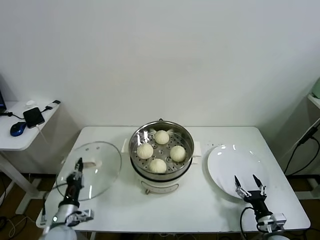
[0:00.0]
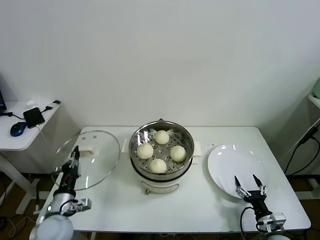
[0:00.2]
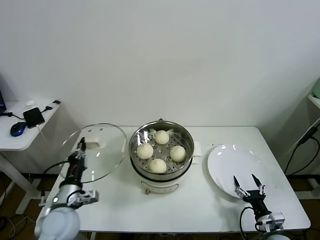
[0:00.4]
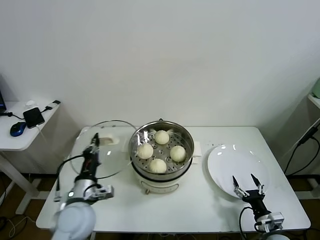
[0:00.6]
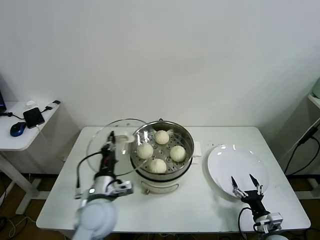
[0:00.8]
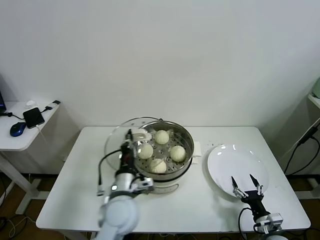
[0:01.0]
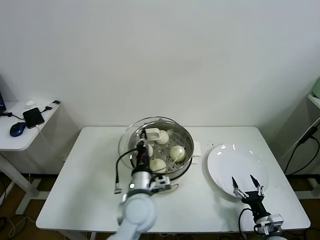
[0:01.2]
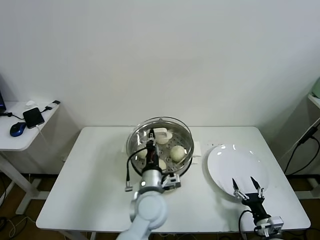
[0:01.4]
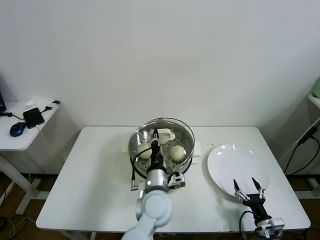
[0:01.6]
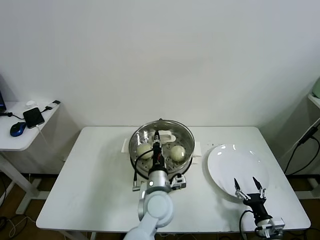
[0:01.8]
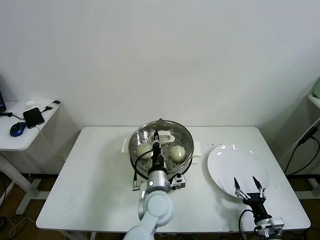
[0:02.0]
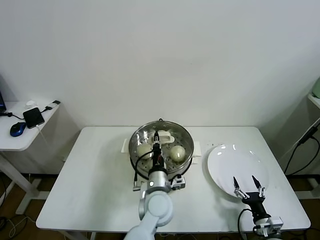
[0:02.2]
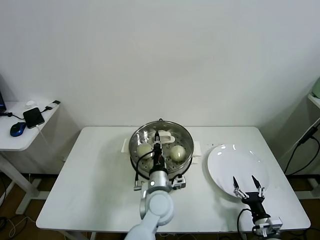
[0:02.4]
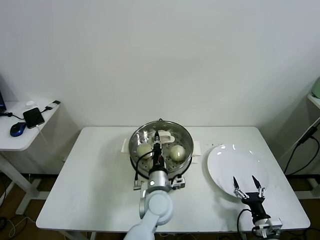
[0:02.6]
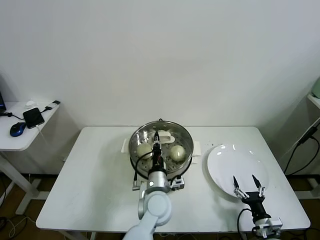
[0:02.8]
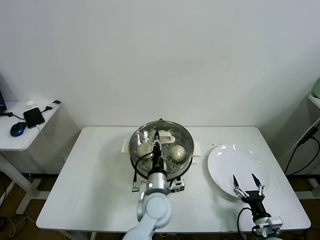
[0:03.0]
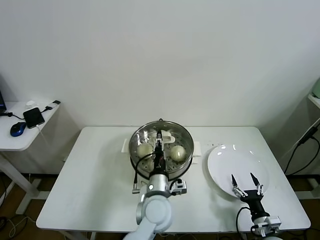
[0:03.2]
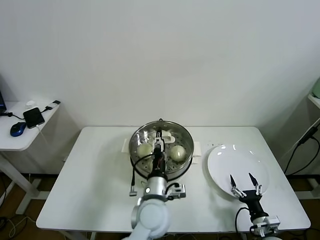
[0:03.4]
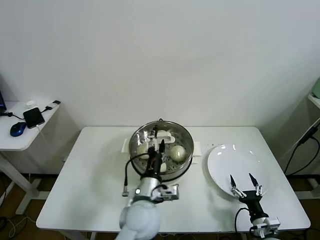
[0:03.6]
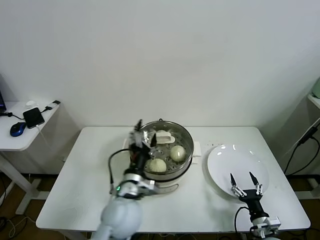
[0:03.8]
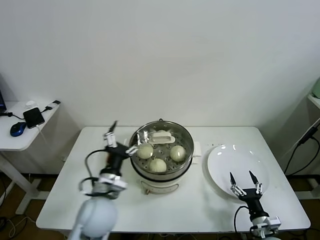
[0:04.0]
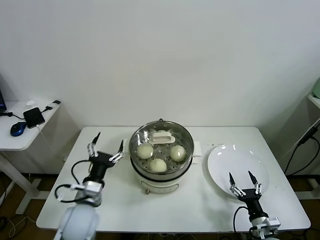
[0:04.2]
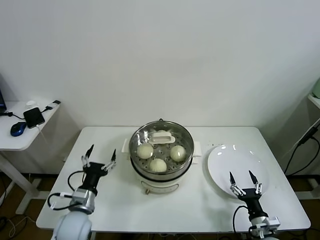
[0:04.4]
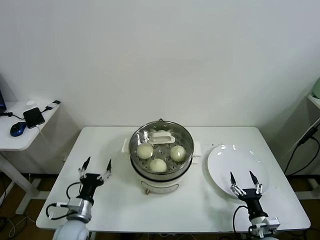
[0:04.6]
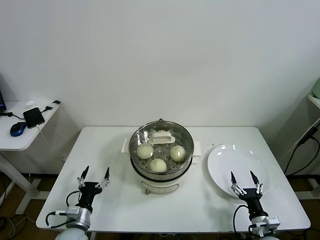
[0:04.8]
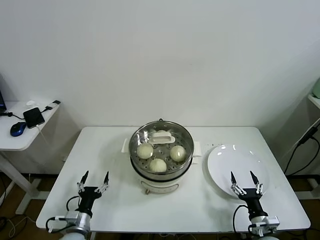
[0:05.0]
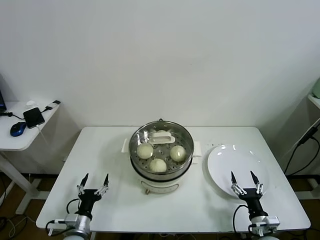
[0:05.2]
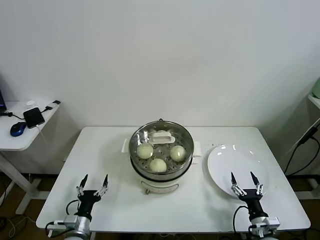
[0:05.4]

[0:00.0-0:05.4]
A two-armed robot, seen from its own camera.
Task of the whole recording: take steamed baozi put them in steamer.
Step, 0:00.0 to 0:03.0: Place the pot lid on the steamer with left gripper.
0:00.0 to 0:01.4: The left gripper moves to the right and upward, roughly 30 cm.
0:01.4 to 0:02.8: The left gripper ends up about 5 cm from where it was.
0:02.8 to 0:04.0: The left gripper is displaced to the left and upward by about 15 cm, and opens up.
0:04.0 to 0:05.4: The left gripper is displaced downward and to the left by approximately 25 cm.

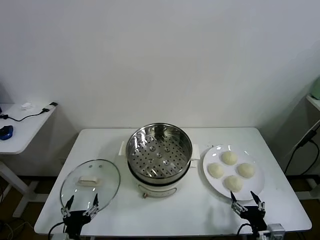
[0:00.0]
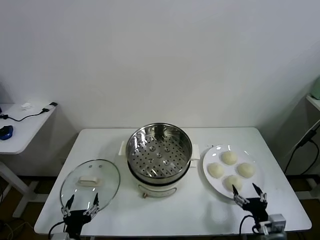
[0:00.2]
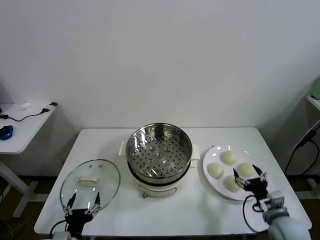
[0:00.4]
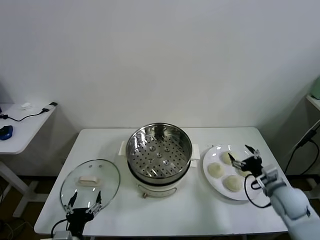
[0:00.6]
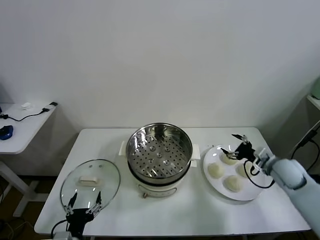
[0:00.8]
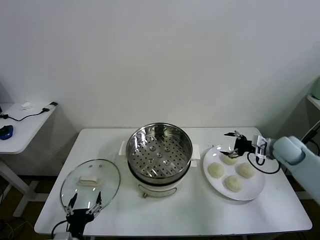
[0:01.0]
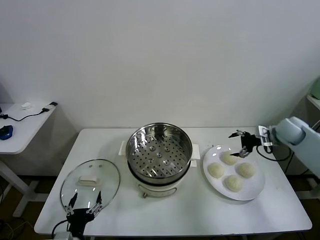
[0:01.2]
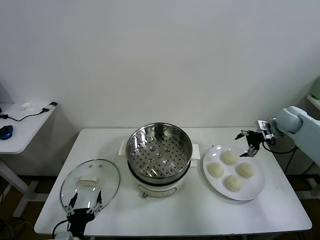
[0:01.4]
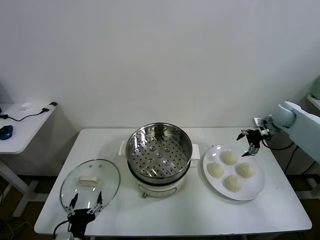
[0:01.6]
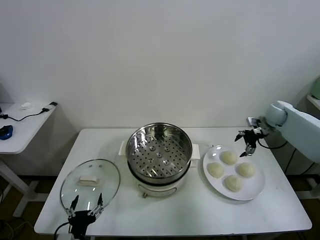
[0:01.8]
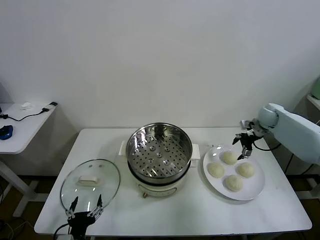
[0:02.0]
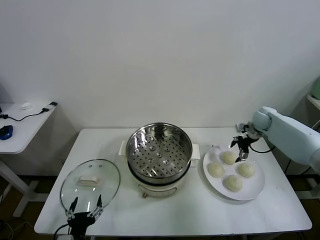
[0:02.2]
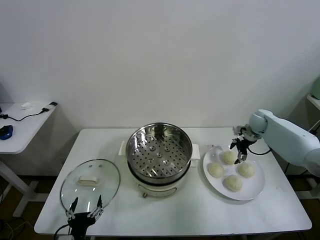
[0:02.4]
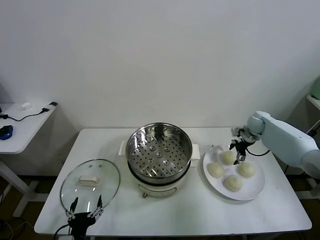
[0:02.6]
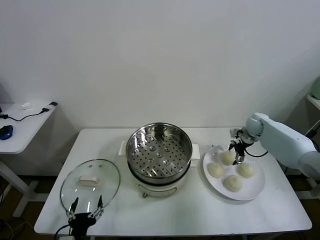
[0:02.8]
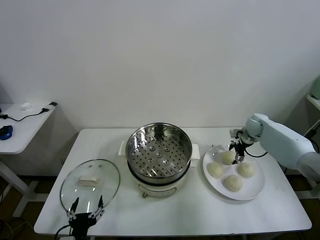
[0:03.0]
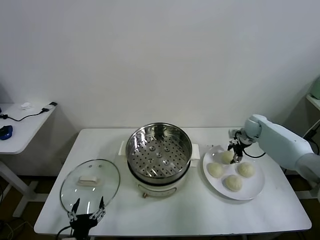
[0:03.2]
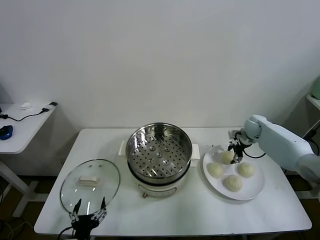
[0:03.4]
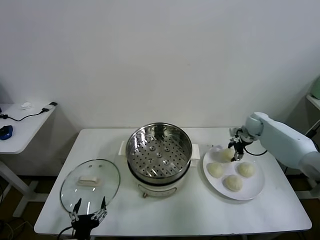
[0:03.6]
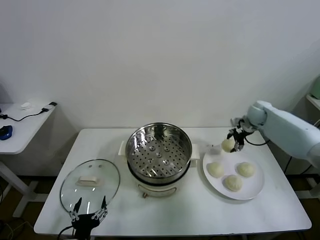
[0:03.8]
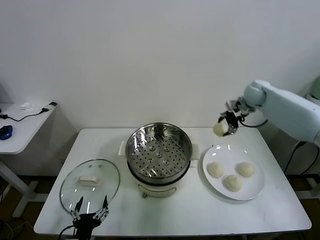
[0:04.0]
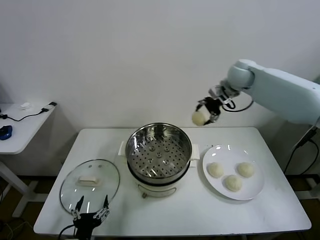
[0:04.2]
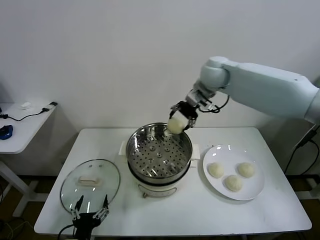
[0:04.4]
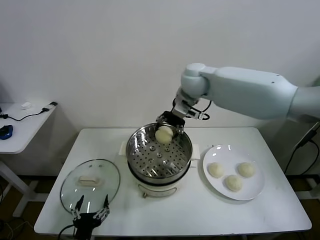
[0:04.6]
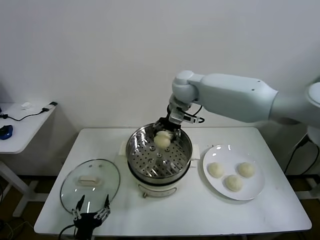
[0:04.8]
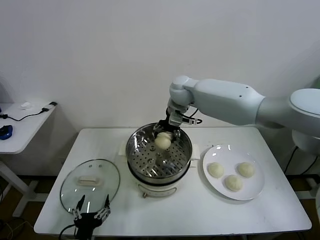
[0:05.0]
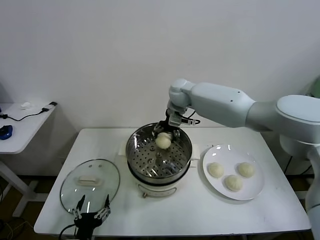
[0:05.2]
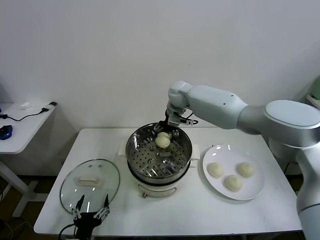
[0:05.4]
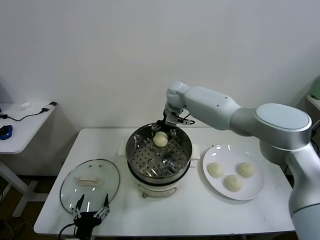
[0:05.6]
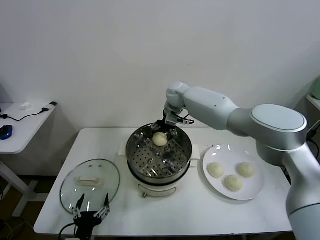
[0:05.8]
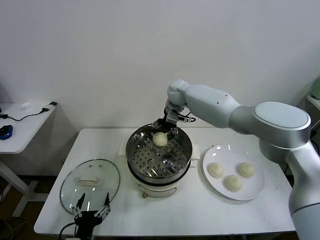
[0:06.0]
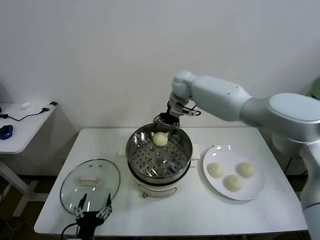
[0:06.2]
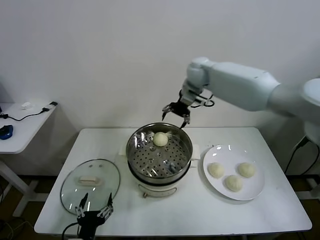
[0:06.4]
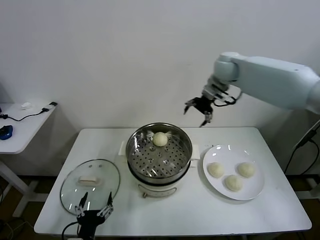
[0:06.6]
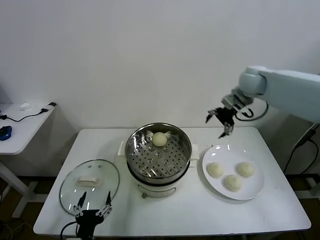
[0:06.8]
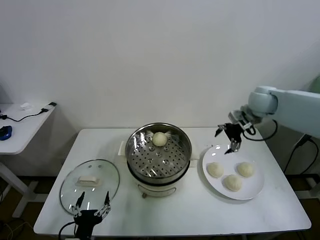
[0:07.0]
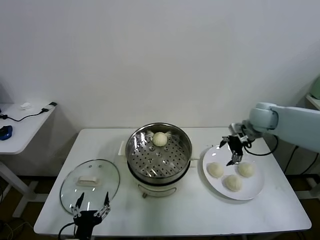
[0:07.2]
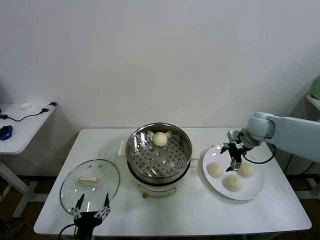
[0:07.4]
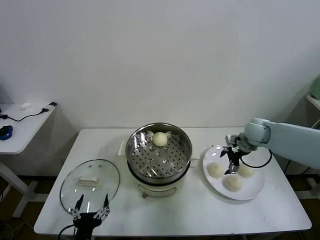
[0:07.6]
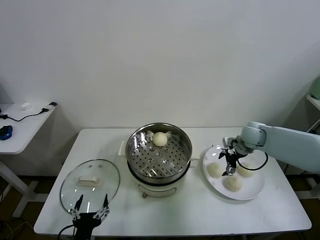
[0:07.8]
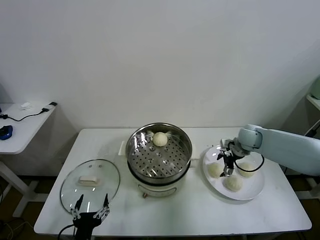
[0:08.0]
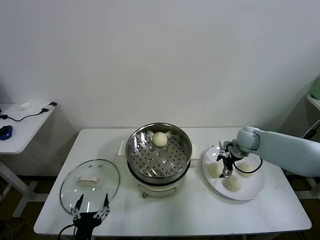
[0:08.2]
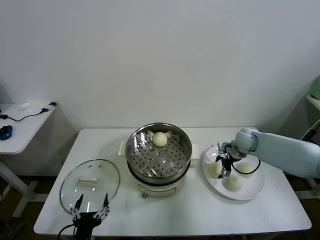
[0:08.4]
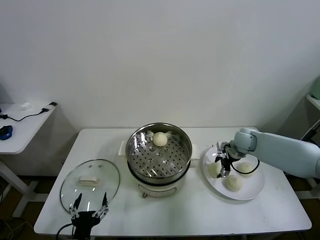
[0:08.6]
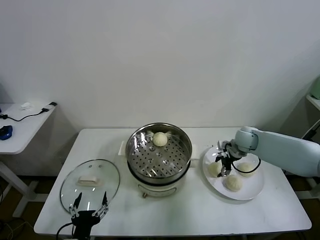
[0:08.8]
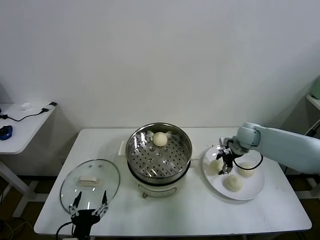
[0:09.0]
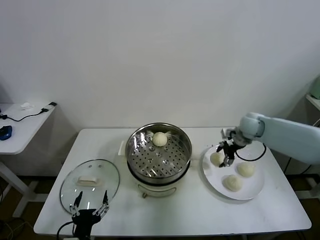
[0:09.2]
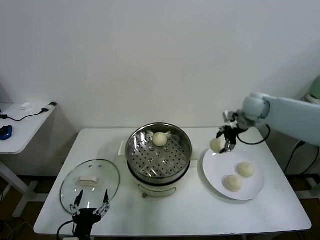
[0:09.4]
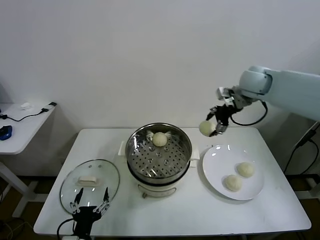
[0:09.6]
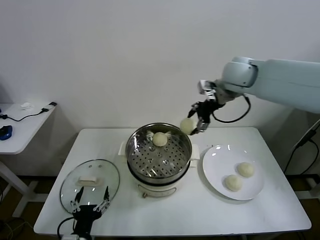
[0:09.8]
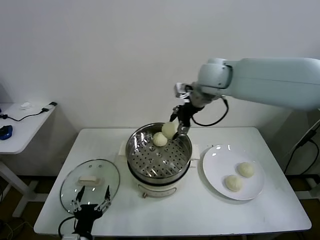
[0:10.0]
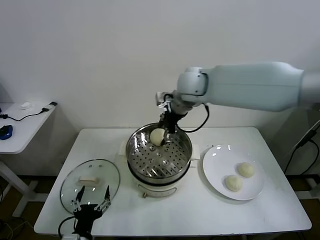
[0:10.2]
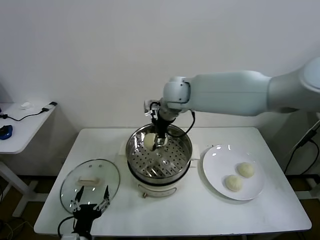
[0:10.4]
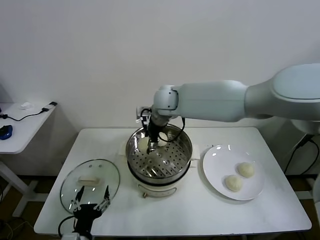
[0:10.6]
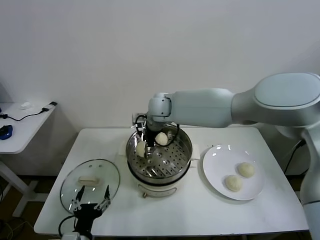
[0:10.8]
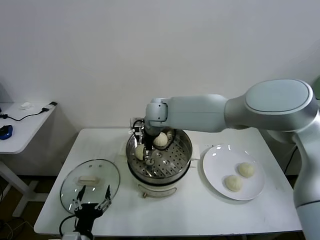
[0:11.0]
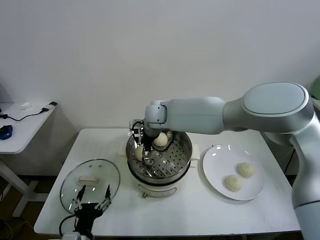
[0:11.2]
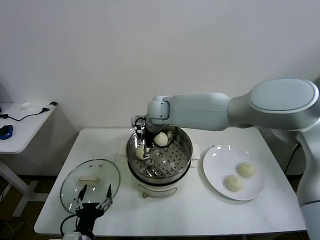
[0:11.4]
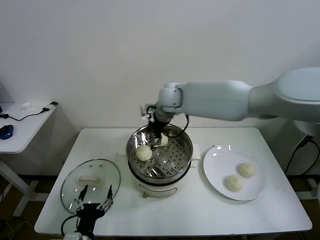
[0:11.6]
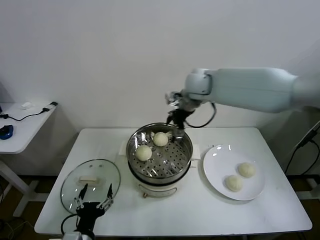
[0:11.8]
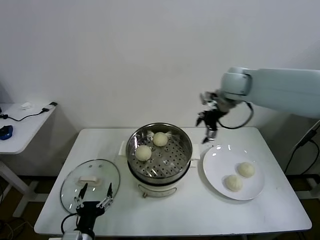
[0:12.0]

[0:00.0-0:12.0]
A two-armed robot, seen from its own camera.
Task of the whole recording: take steamed baozi put them in steamer.
Step, 0:00.0 to 0:03.2: Grasp the baozi in the plate with right gripper.
Step, 0:03.4 to 0:06.2: Place the baozi on the steamer with right gripper.
Step, 0:06.4 to 0:08.6: Grasp the baozi in the plate with right gripper.
Step, 0:08.8 to 0:11.4: Place the baozi on the steamer with right gripper.
0:01.6 to 0:03.0: The right gripper moves downward and to the left, about 10 cm.
0:03.0 to 0:04.4: The right gripper heads to the left and upward, covering roughly 35 cm.
0:04.4 to 0:06.0: The right gripper heads downward, forward and to the left, covering some 15 cm, and opens.
0:06.0 to 0:07.6: The right gripper is displaced to the right, backward and downward by some 30 cm.
0:07.6 to 0:09.0: The right gripper closes up.
0:09.0 to 0:10.4: The right gripper is displaced to the left and upward by approximately 35 cm.
0:10.4 to 0:12.0: The right gripper is displaced to the right by about 20 cm, and opens its fingers.

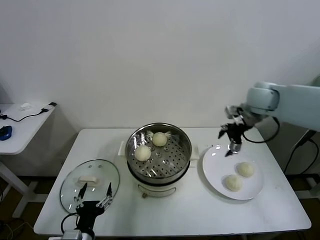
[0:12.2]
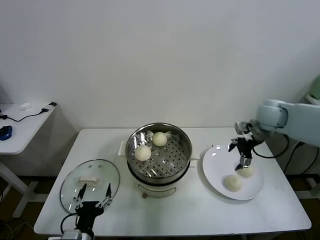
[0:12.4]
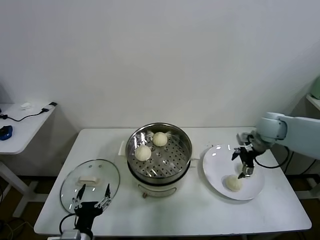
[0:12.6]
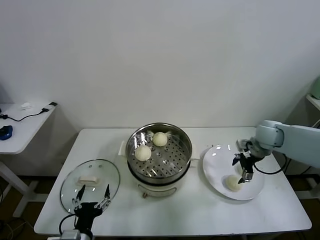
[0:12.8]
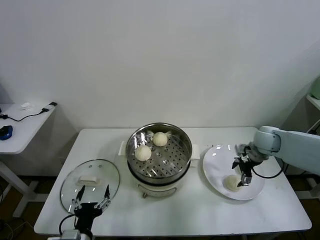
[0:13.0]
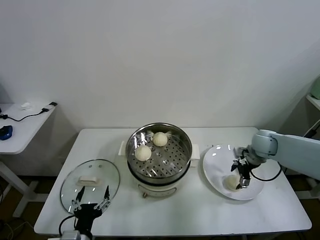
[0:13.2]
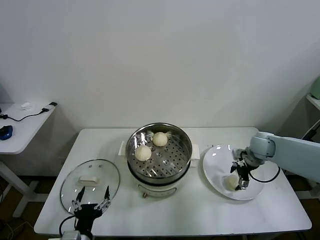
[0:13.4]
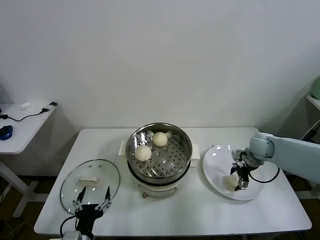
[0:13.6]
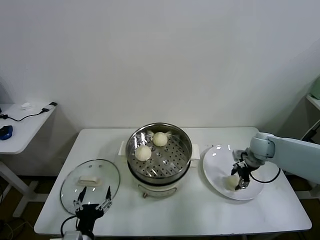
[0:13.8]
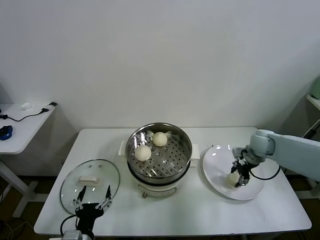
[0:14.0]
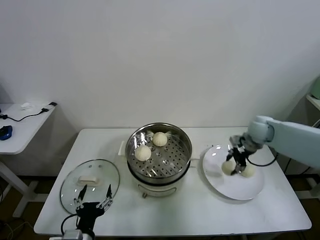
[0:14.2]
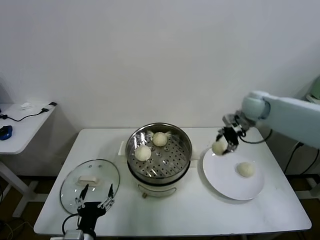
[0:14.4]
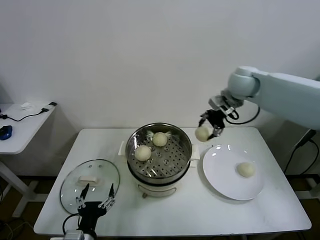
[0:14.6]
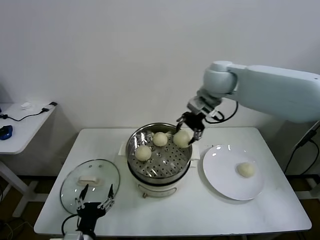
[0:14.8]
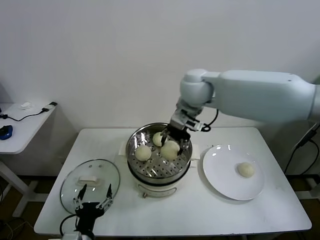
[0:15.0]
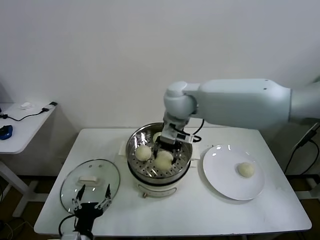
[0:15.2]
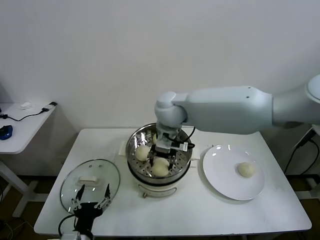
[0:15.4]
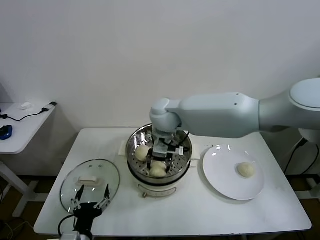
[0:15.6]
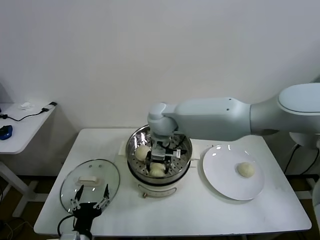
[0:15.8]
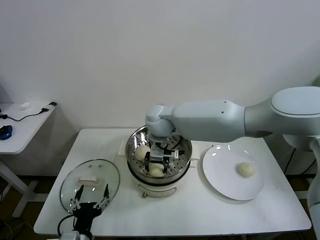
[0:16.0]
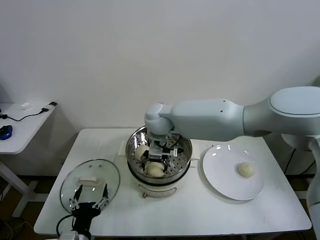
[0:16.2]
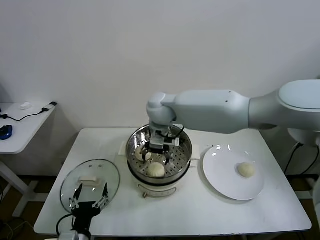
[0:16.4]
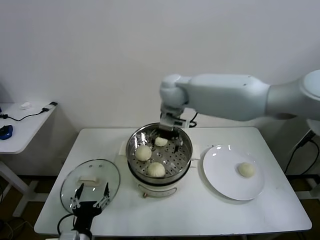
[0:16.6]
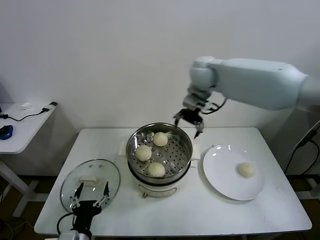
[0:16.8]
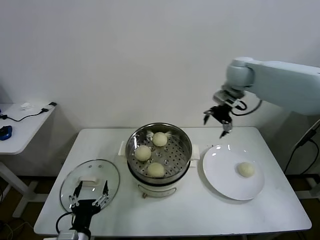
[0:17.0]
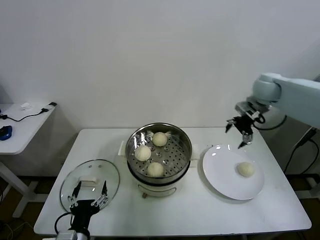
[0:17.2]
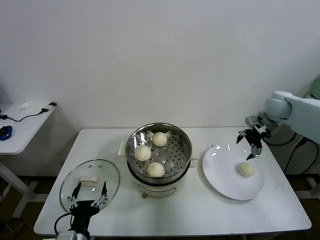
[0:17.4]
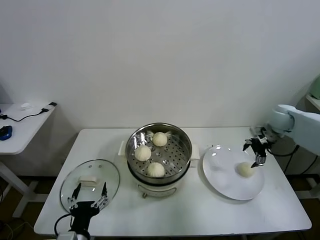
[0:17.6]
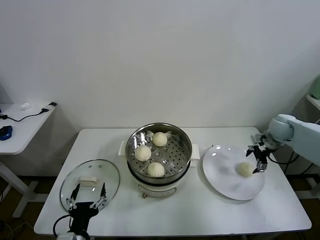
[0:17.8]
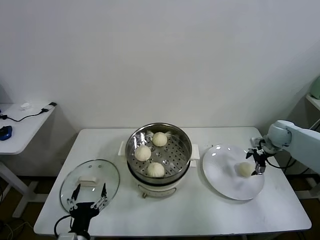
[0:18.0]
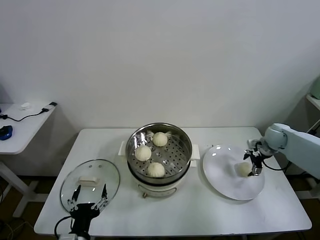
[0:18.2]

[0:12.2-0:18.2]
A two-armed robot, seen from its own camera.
Task of the whole recording: take steamed baozi put them in steamer.
Step, 0:12.2 to 0:13.6: Grasp the baozi in the plate with right gripper.
Step, 0:14.0 to 0:16.2: Place the baozi on the steamer with right gripper.
0:12.2 to 0:13.8: The right gripper shifts some 20 cm downward, and closes its fingers.
0:13.8 to 0:15.2: The right gripper is displaced to the left and upward by about 40 cm.
0:15.2 to 0:16.6: The right gripper travels forward by approximately 5 cm, moves approximately 10 cm downward and comes back, and opens up.
0:16.6 to 0:18.2: The right gripper travels to the right and downward by some 50 cm.
